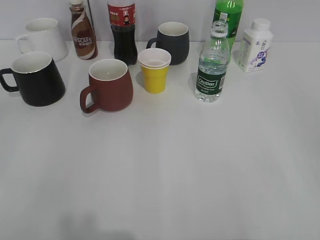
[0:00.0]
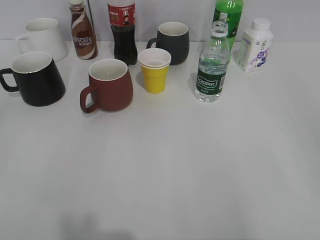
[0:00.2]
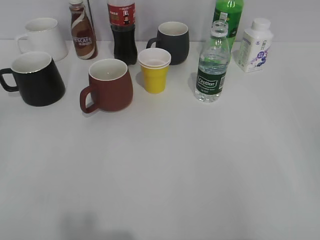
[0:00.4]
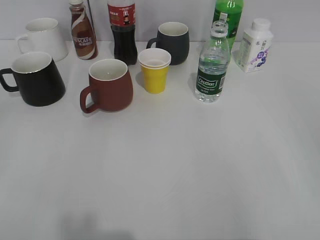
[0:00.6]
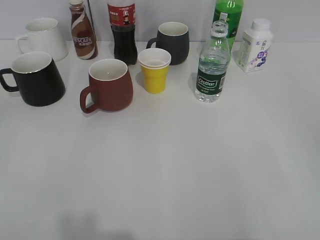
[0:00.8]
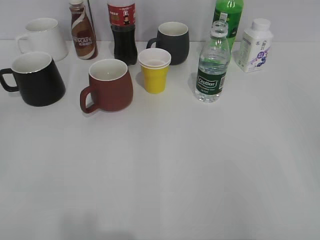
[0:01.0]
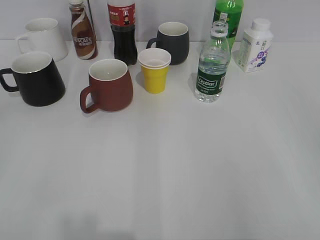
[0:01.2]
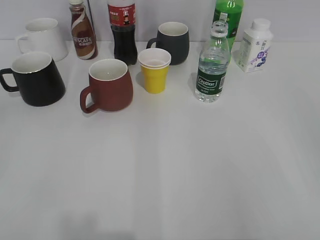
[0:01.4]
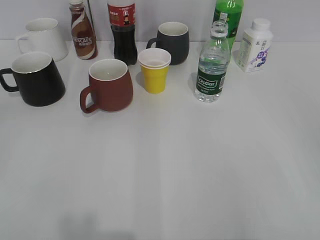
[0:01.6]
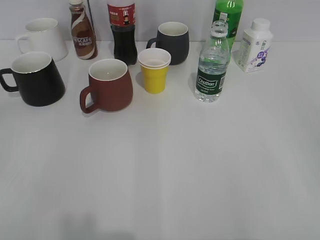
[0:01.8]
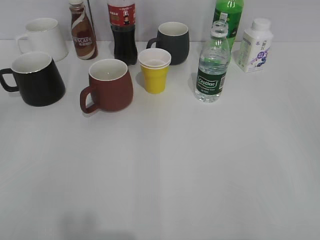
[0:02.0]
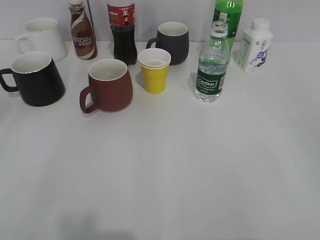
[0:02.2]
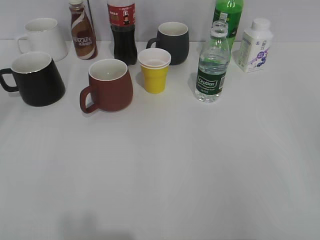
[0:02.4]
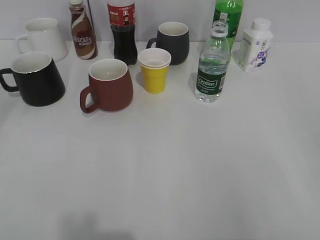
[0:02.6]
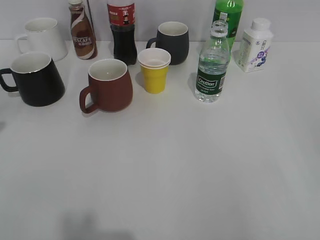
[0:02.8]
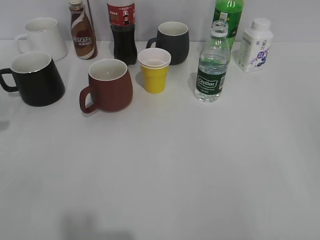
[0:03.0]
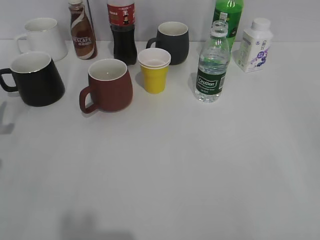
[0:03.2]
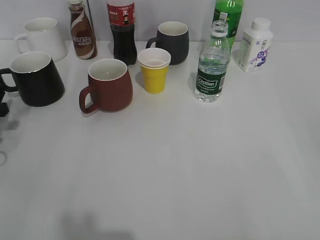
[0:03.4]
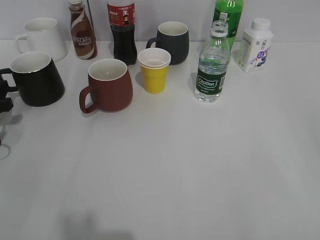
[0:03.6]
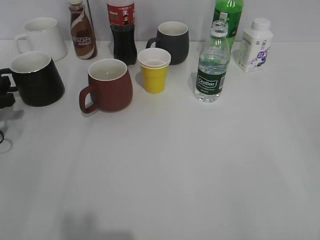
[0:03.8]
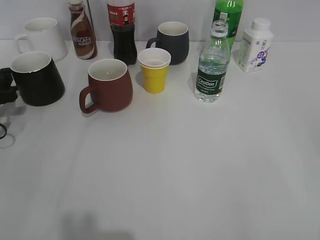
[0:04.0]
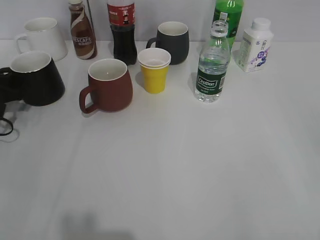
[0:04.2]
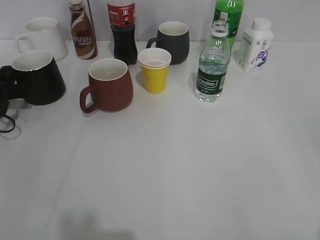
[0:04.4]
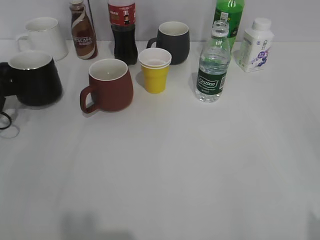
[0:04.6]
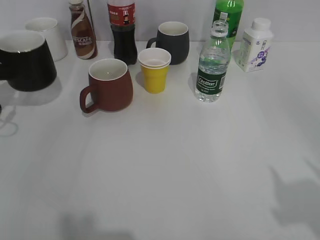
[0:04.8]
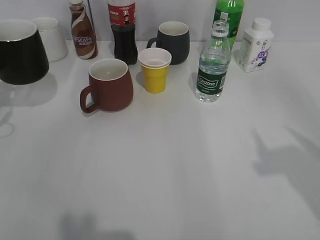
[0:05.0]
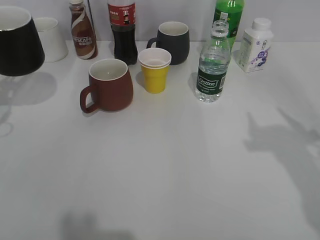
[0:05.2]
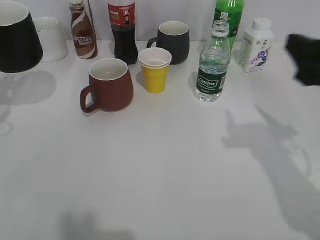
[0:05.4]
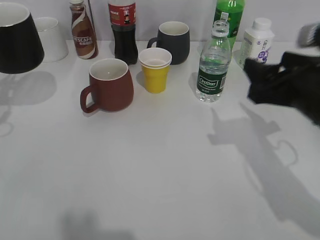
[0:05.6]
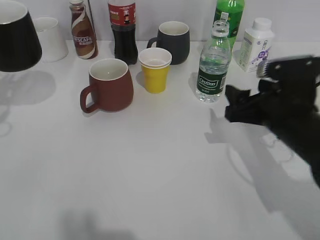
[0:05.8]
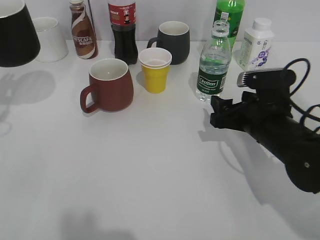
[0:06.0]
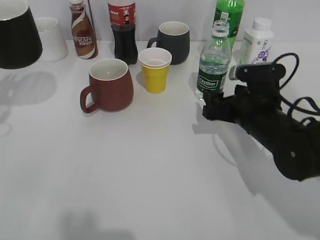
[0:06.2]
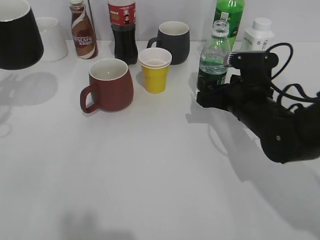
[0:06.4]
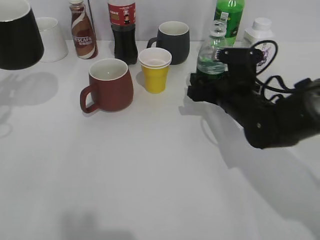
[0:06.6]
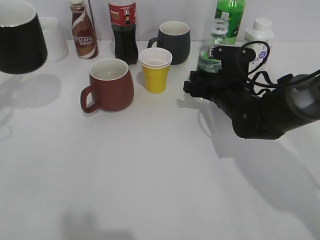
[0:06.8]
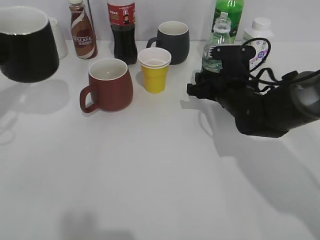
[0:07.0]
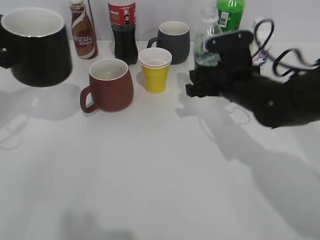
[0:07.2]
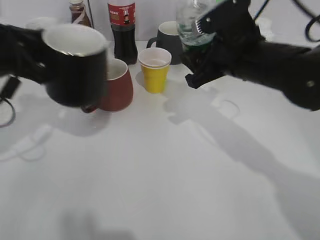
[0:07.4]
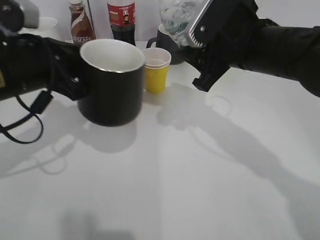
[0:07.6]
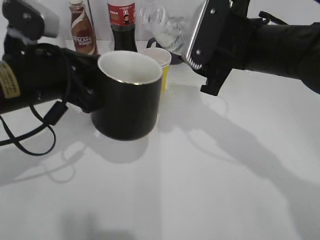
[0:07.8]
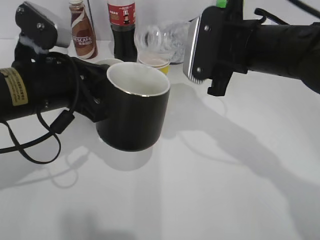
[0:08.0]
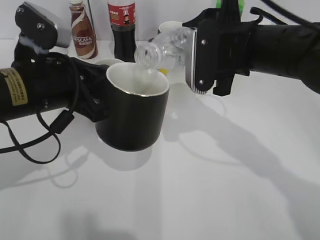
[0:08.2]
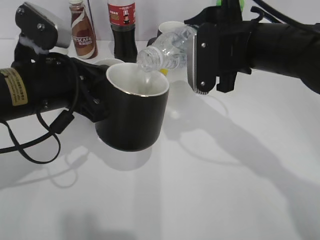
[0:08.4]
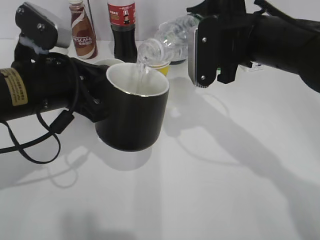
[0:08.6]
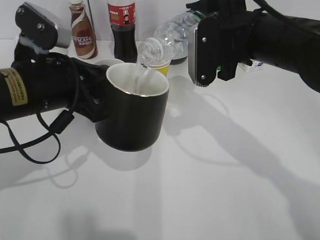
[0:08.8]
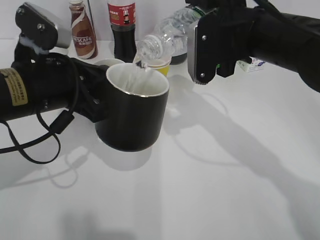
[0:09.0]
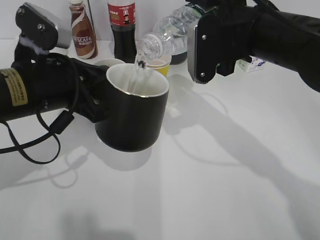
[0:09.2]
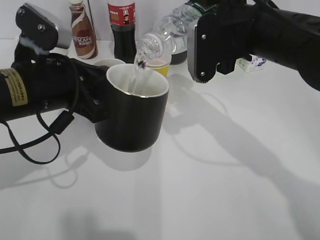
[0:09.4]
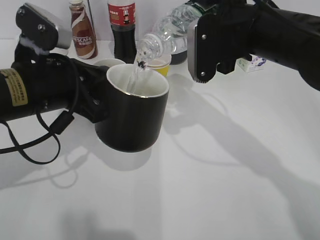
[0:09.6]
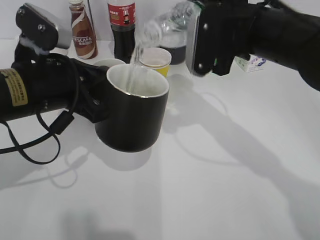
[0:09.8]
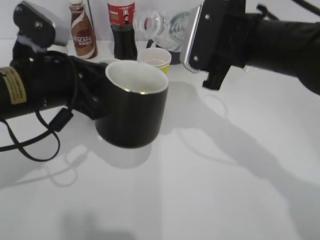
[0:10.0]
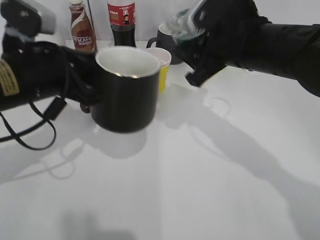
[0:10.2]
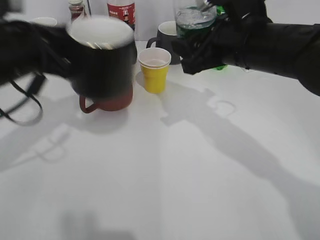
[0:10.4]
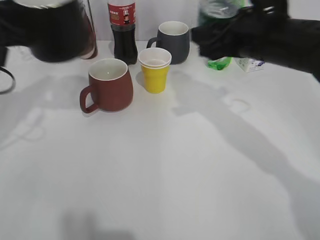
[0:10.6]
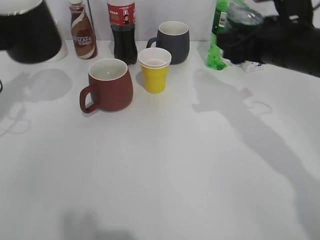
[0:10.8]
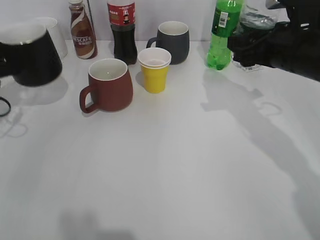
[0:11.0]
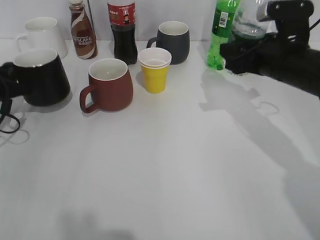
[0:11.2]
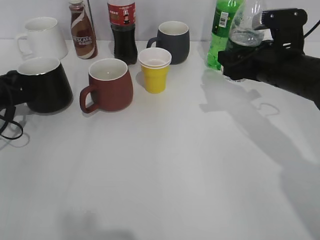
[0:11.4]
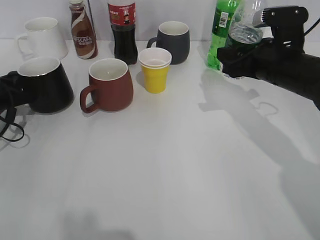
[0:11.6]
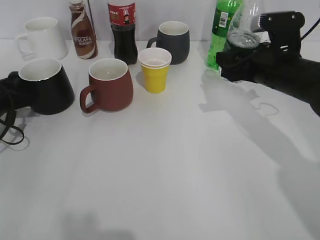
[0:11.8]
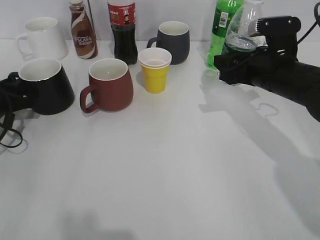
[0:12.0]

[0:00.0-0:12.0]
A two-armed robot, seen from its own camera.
Step, 0:04.4 to 0:05.2: Lift the black cup with left gripper.
Step, 0:05.4 to 0:07.0: Grasp the bottle with water with right gripper.
Step, 0:07.2 to 0:10.0: Pour the water from bottle to cup with right gripper.
Step, 0:10.2 to 0:11.8: Place the black cup on the table with left gripper.
0:03.0 to 0:04.4: The left gripper shifts about 15 cm forward and downward, and closes up.
0:04.4 to 0:06.0: The left gripper is displaced upward and backward by some 15 cm. The right gripper heads forward, downward and to the left, covering roughly 35 cm.
0:06.0 to 0:07.6: The right gripper goes approximately 15 cm upward and to the left, and closes up, while the left gripper is displaced to the right by roughly 15 cm.
0:09.0 to 0:10.4: The left gripper changes place by some 5 cm.
0:10.4 to 0:12.0: The left gripper heads downward, to the left and forward, covering roughly 20 cm; the right gripper heads downward and to the right, covering some 10 cm.

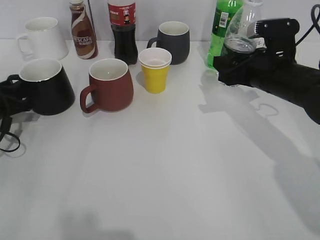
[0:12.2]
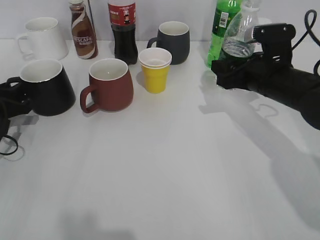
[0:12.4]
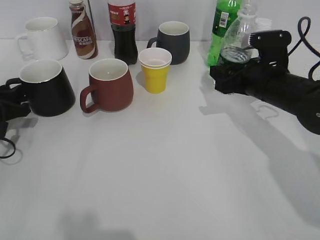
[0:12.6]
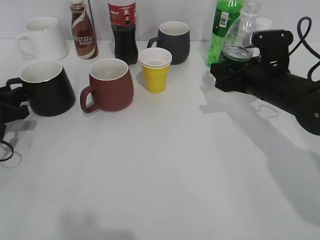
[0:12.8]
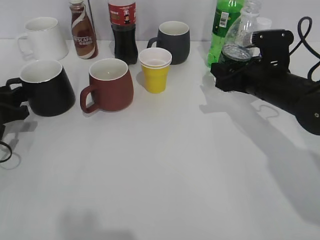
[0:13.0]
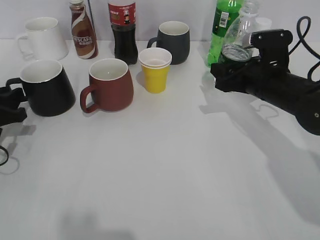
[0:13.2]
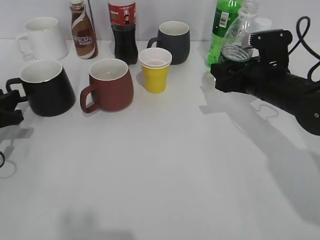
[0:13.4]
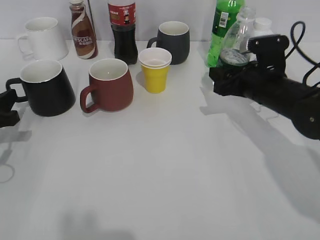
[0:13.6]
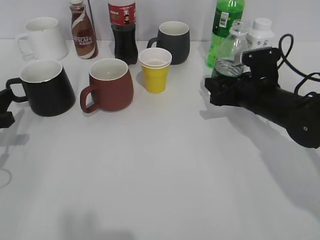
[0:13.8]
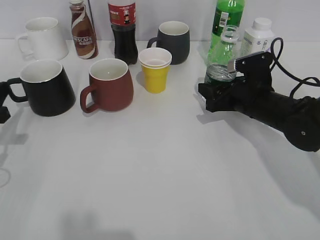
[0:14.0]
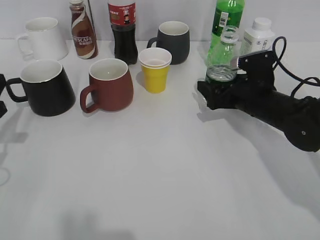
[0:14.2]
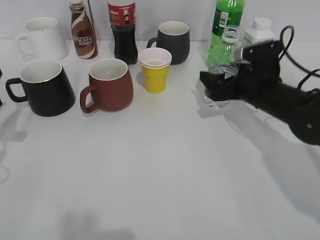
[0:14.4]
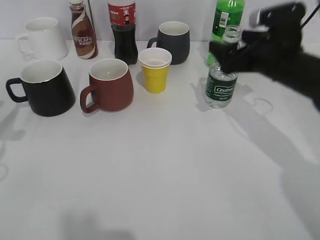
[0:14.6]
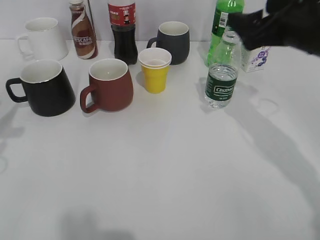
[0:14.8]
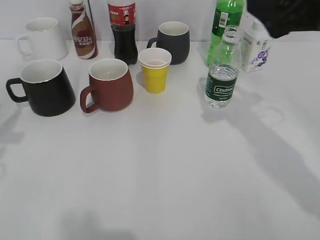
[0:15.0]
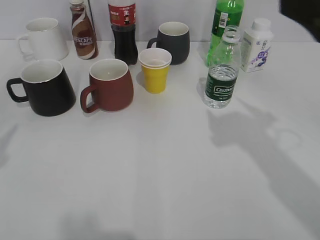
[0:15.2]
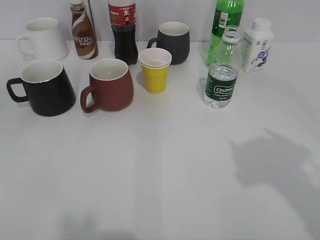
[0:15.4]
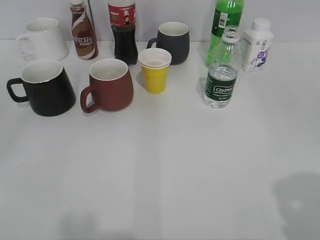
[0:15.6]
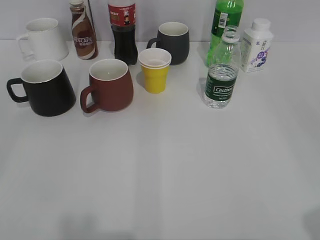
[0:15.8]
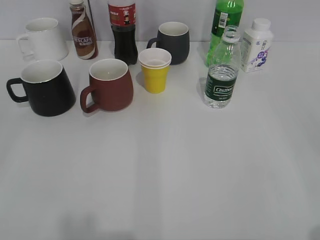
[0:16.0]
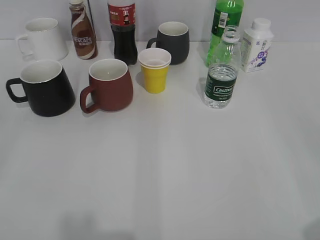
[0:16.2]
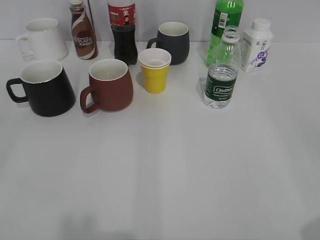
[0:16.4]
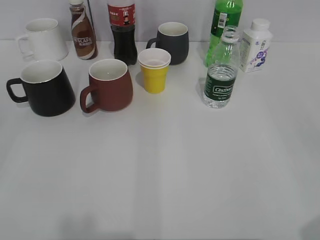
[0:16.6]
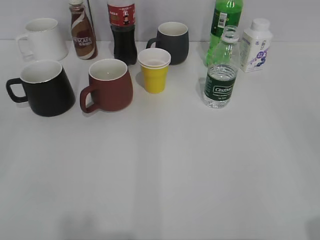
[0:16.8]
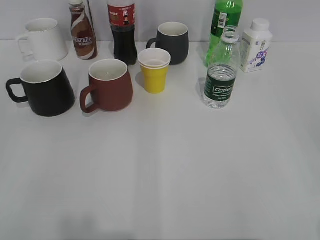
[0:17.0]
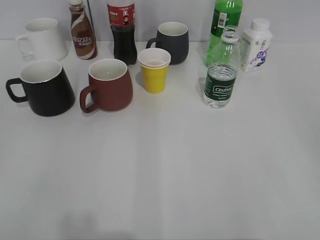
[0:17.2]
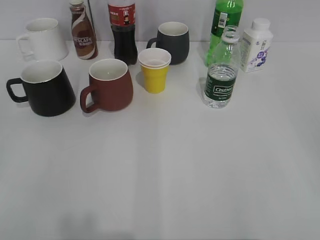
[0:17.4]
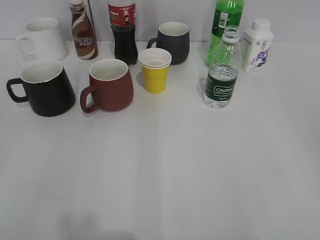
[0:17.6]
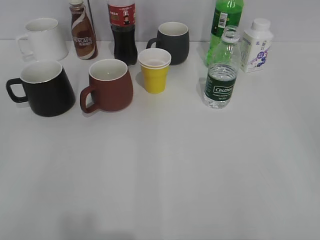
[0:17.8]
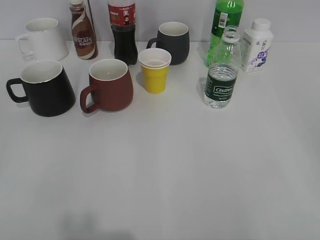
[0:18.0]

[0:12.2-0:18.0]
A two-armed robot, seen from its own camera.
Step, 0:12.2 to 0:14.4: Place the water bottle on the table with right gripper.
0:12.2 to 0:13.6: The left gripper goes approximately 5 cm backward.
0:13.6 to 0:15.0: Both grippers move upward and backward, roughly 20 cm. The right gripper opens up.
0:15.0 to 0:16.6: The left gripper shifts about 20 cm backward, while the right gripper shifts about 25 cm backward and to the right, and closes.
